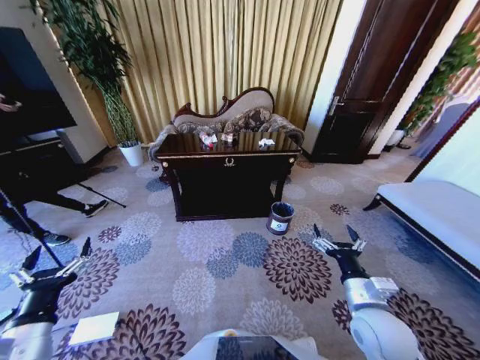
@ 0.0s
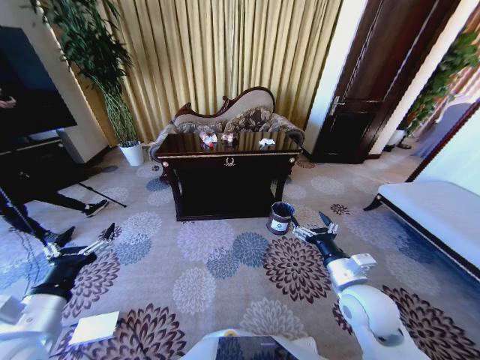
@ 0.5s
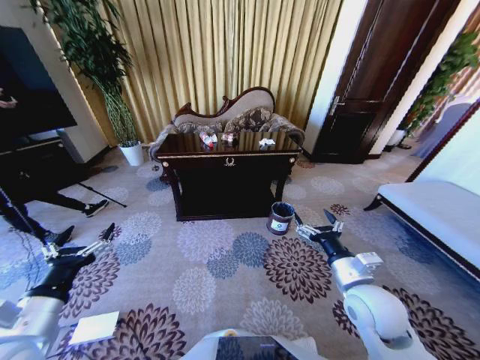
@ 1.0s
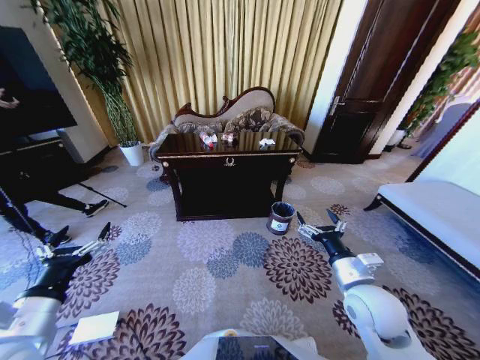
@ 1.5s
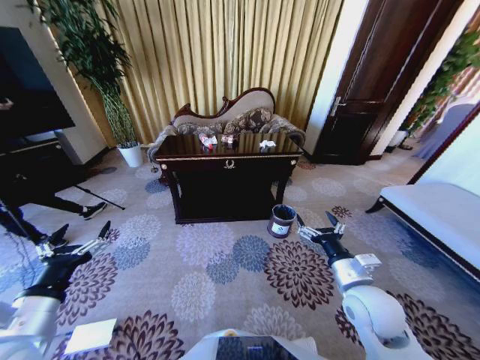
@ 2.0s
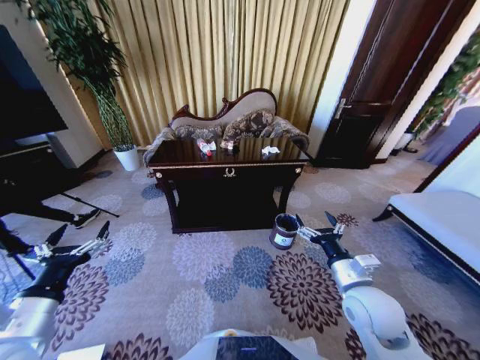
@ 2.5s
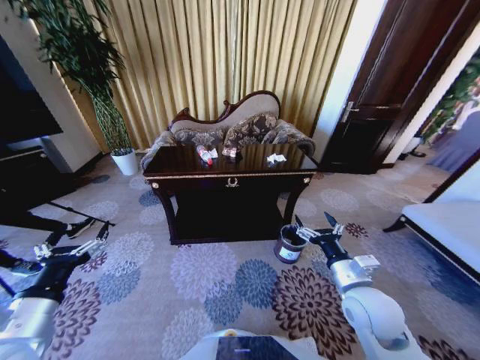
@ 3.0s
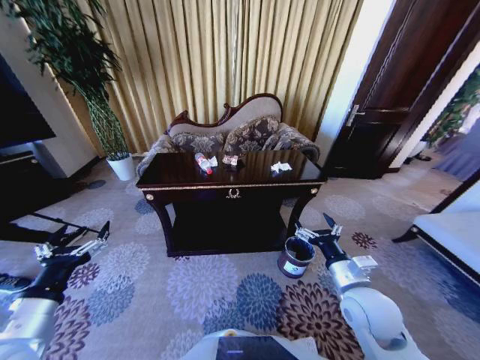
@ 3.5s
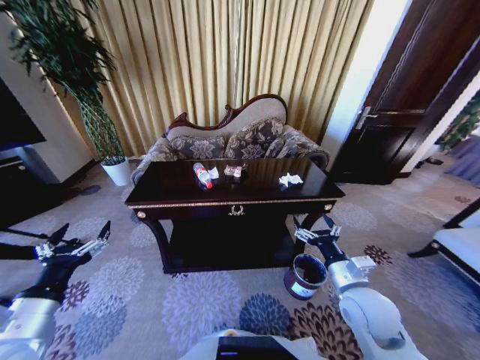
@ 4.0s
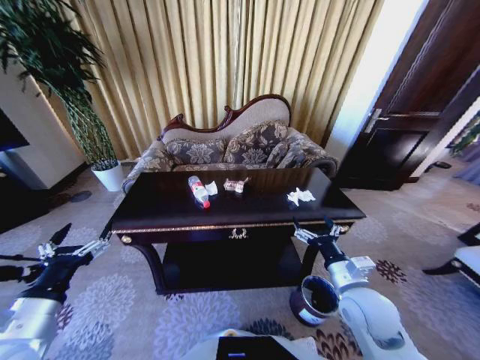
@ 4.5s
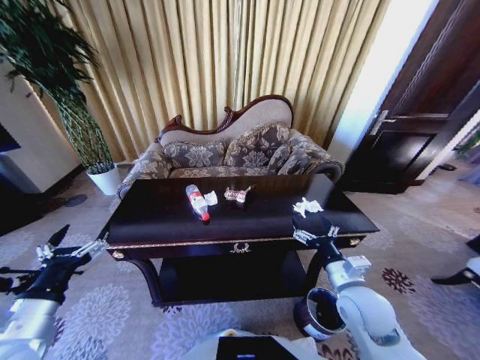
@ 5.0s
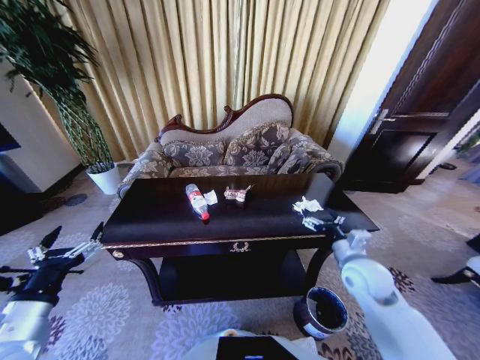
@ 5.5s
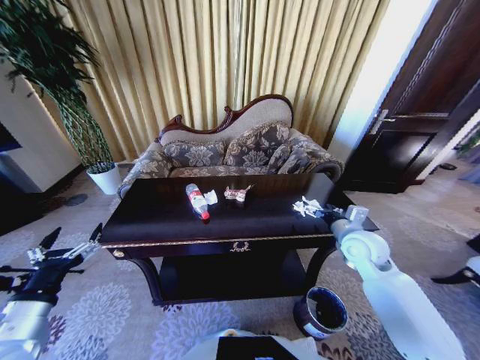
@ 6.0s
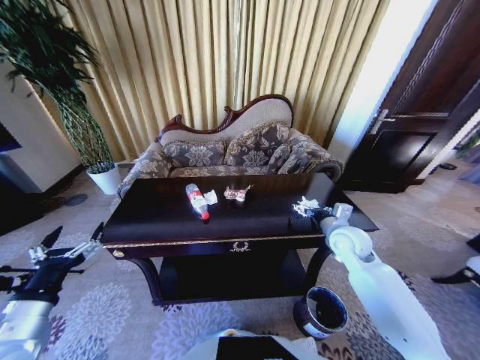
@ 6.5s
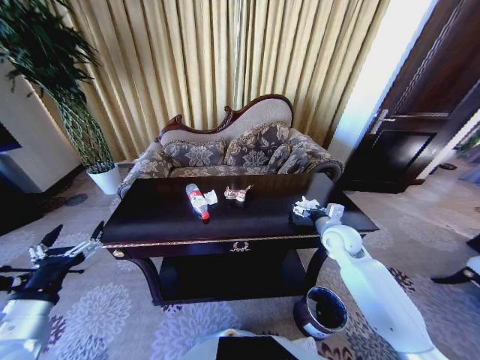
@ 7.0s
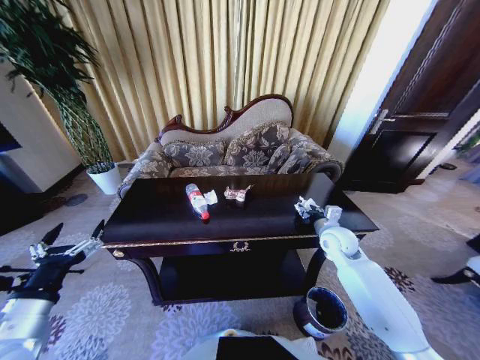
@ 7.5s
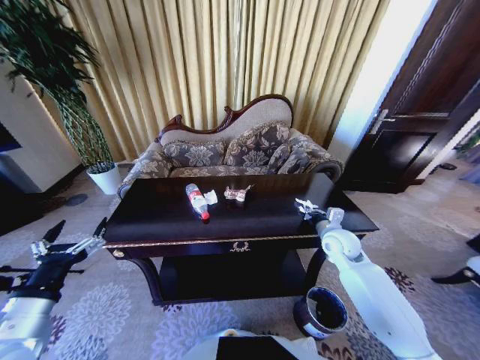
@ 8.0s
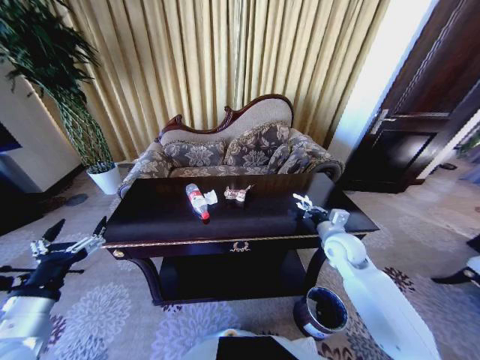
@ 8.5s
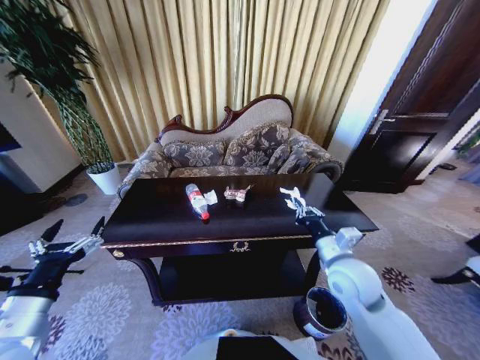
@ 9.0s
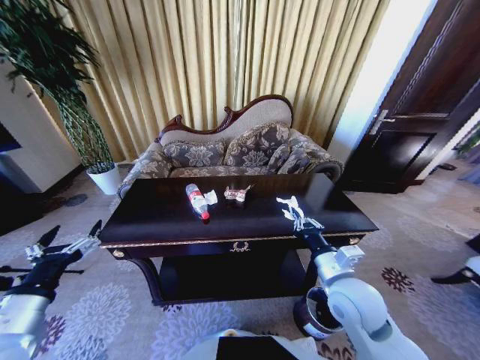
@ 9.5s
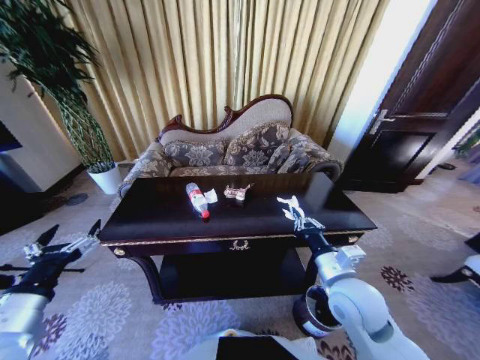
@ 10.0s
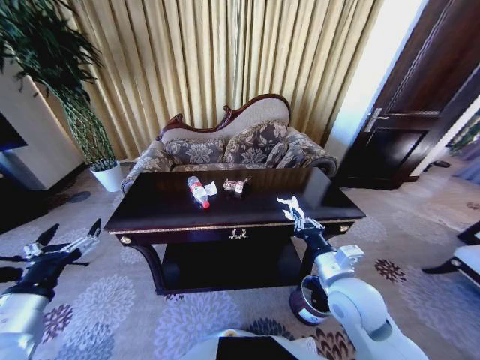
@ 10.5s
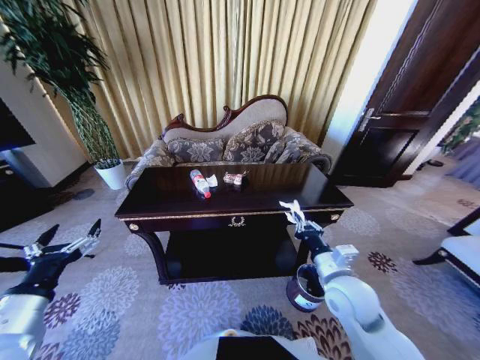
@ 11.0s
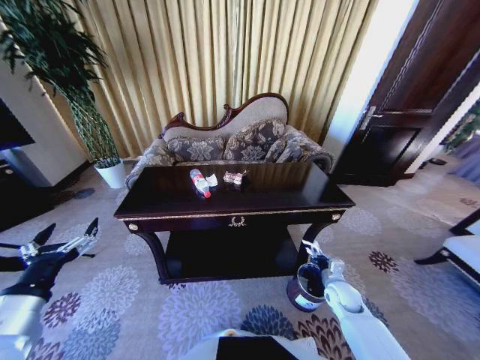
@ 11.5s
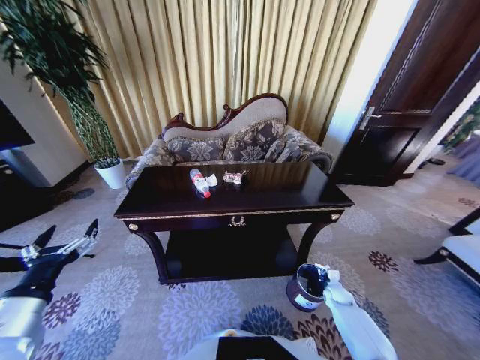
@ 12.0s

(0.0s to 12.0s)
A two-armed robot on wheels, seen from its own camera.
Task of the whole recording: Move to the front of the table and place the trash on the table into the trash bin.
4.0s - 6.0s: The right gripper goes some 15 cm forward and to the right.
6.0s - 8.0s: The right gripper moves downward, approximately 5 cm, and closes up.
8.0s - 10.0s: The right gripper moves backward and to the left, about 20 cm.
10.0s - 12.0s: The right gripper is displaced downward and to the right by about 40 cm.

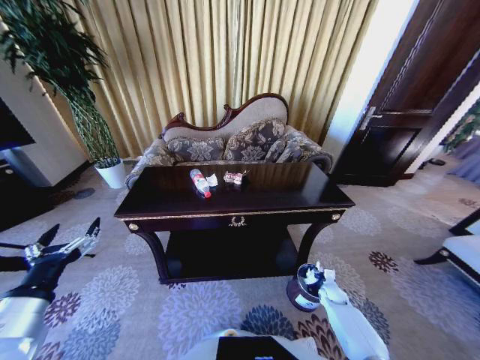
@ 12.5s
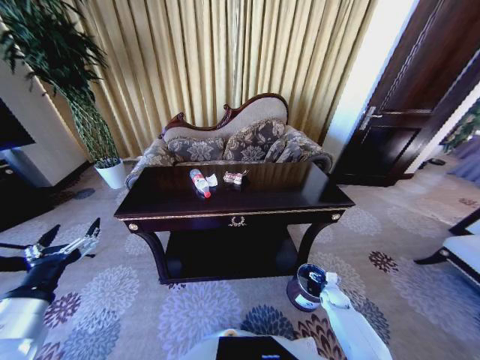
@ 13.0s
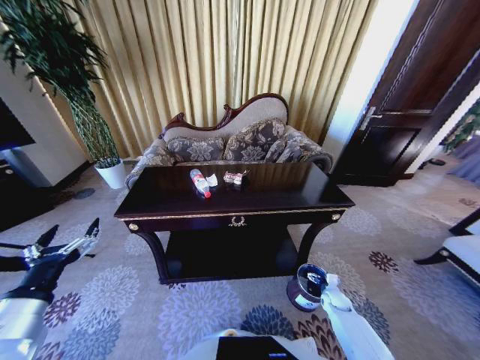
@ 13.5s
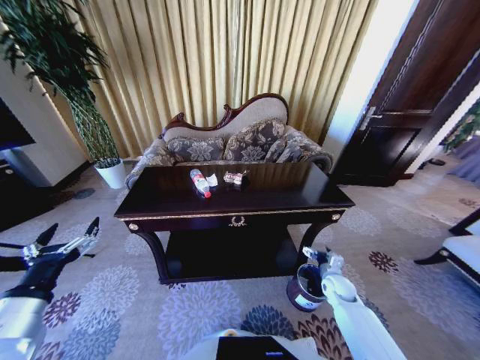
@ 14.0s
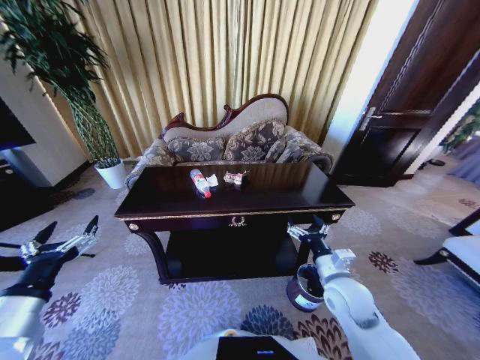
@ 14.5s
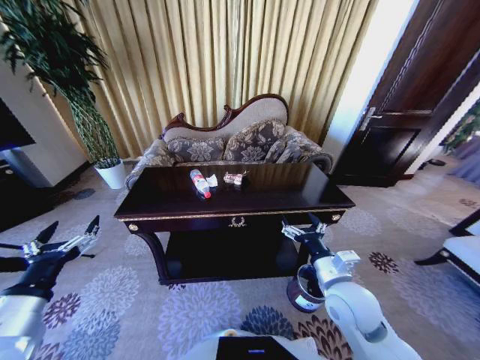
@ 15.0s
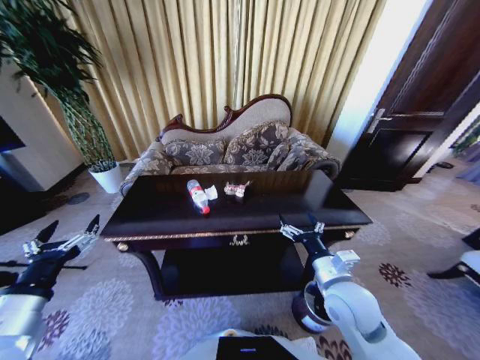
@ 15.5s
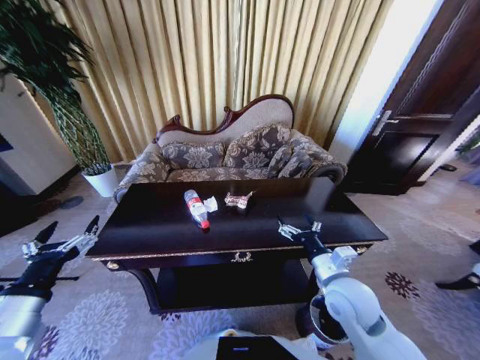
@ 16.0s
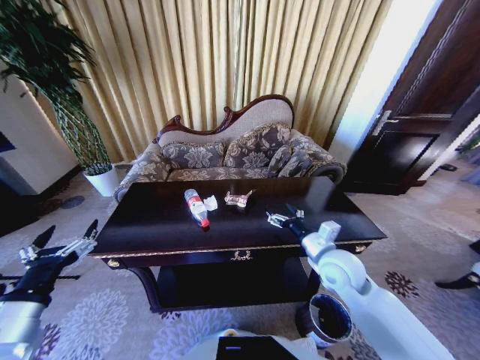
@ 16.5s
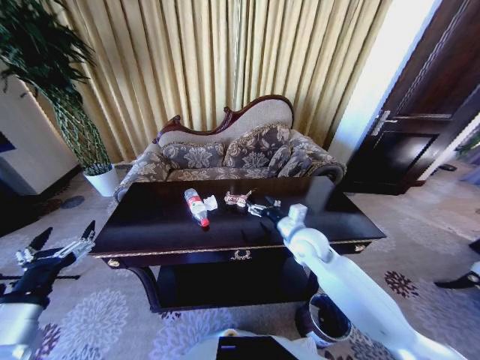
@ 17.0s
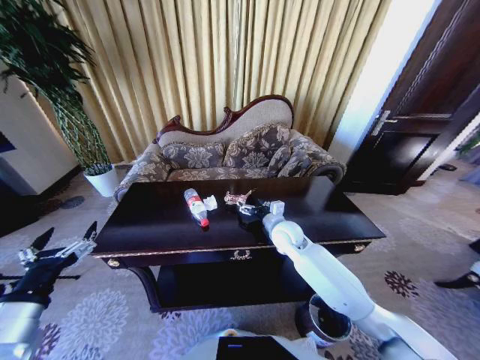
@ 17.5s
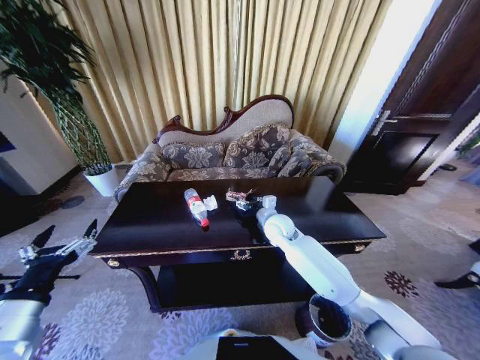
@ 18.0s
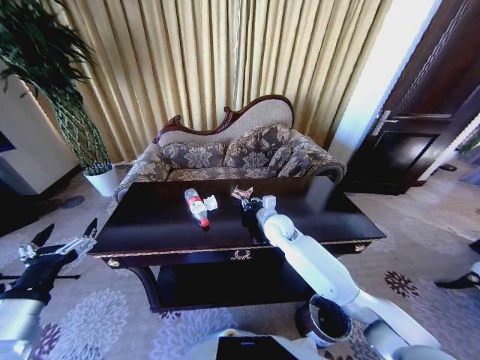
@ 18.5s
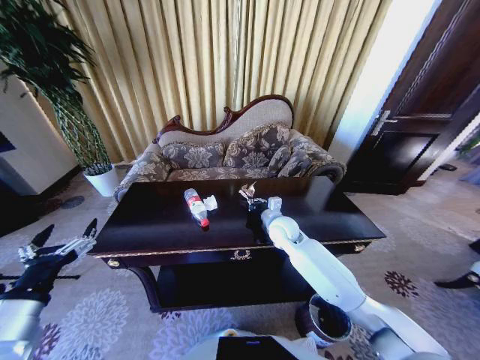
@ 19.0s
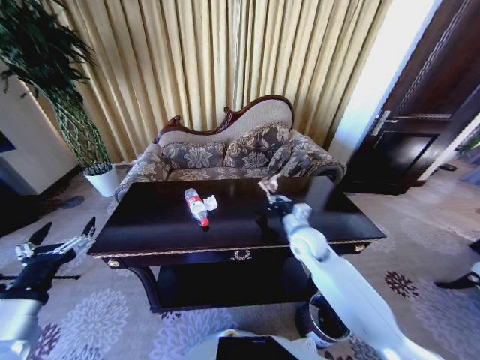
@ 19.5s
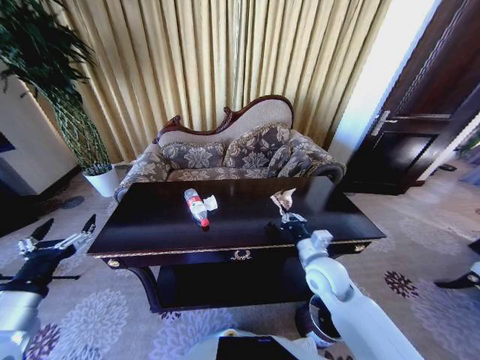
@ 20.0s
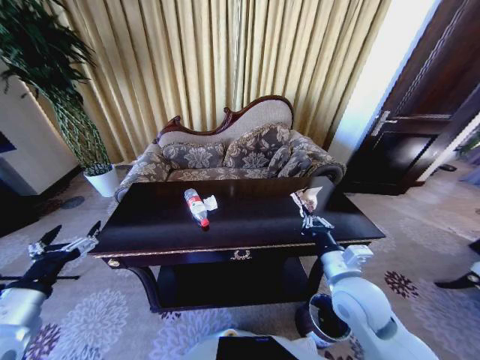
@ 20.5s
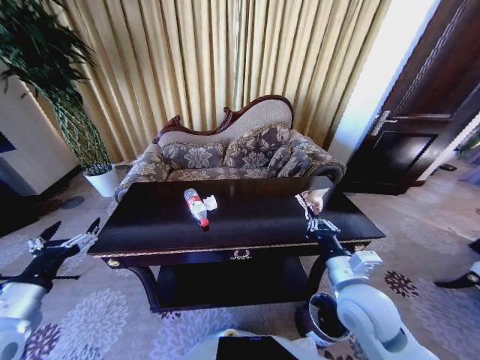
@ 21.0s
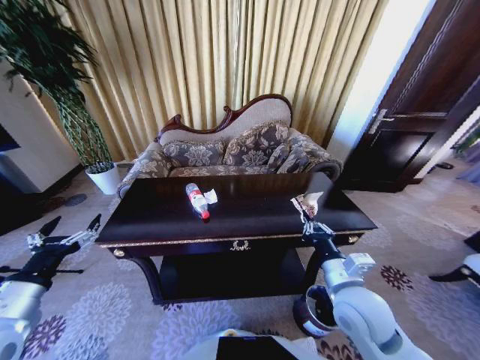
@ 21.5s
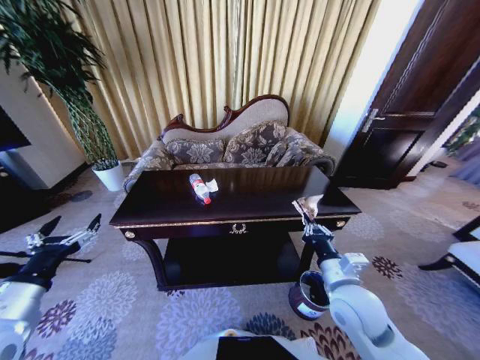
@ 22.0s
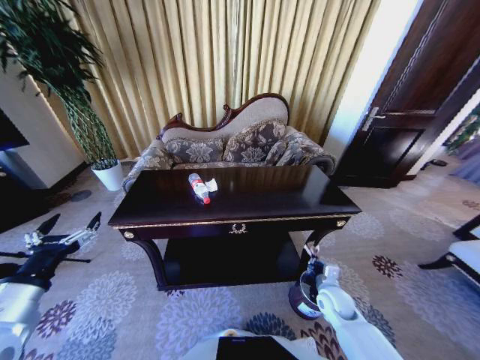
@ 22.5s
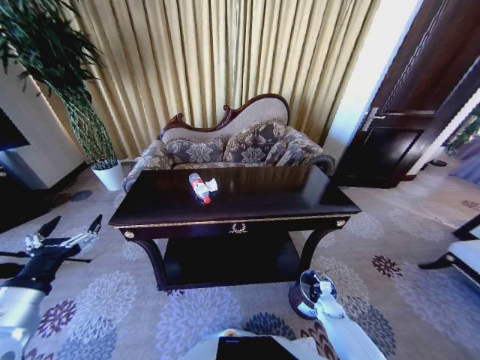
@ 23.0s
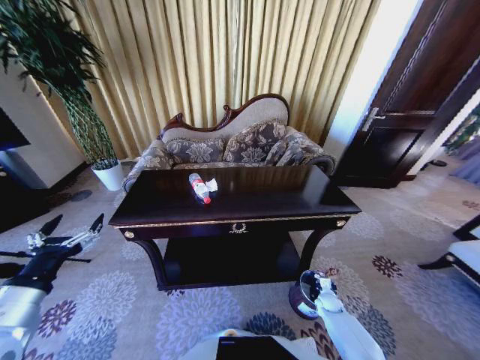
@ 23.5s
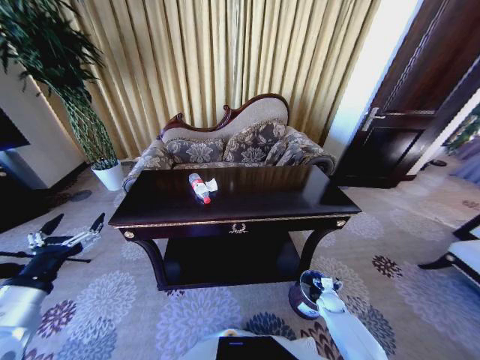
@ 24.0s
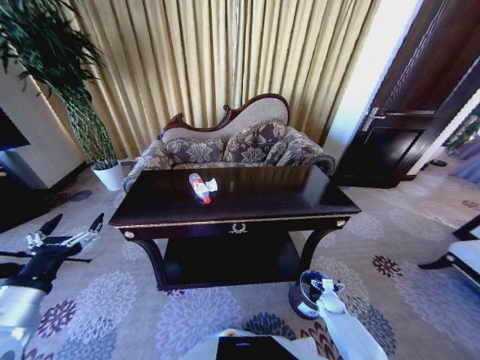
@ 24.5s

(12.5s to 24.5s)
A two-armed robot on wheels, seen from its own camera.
Task of the whole recording: Move to the front of the table and place the trash on the table into the trash bin.
12.5s - 14.5s: The right gripper goes roughly 30 cm upward and to the left, and opens up.
14.5s - 16.5s: The right gripper travels upward by roughly 5 cm.
16.5s - 18.5s: The right gripper moves forward and to the left, roughly 20 cm, and closes.
18.5s - 20.5s: The right gripper moves backward and to the right, roughly 25 cm.
20.5s - 22.5s: The right gripper goes about 20 cm downward.
22.5s - 24.5s: The right gripper goes about 20 cm downward and to the right, and opens.

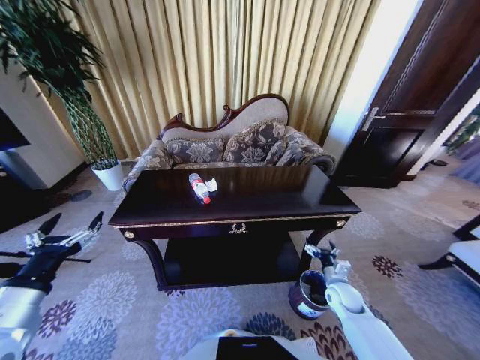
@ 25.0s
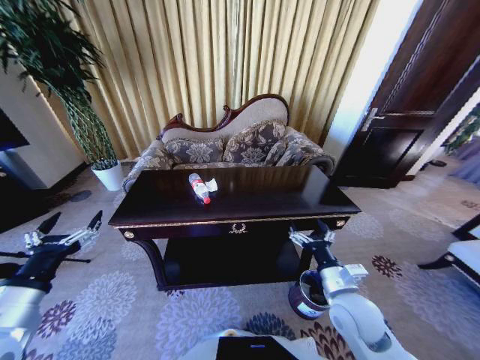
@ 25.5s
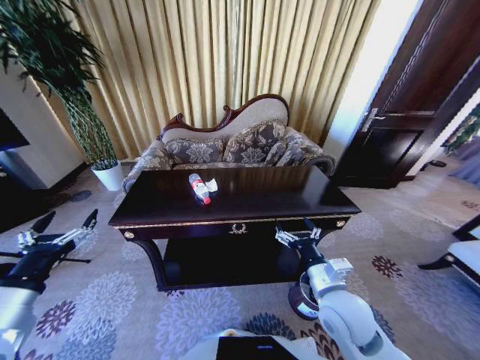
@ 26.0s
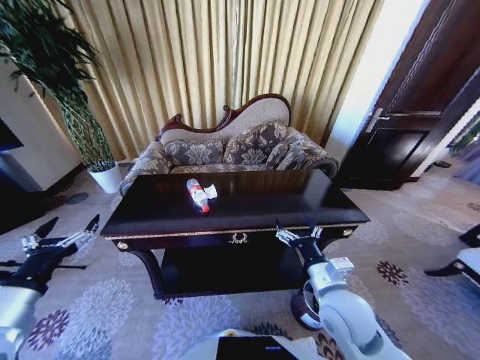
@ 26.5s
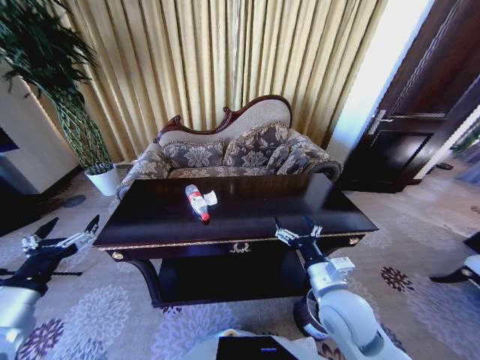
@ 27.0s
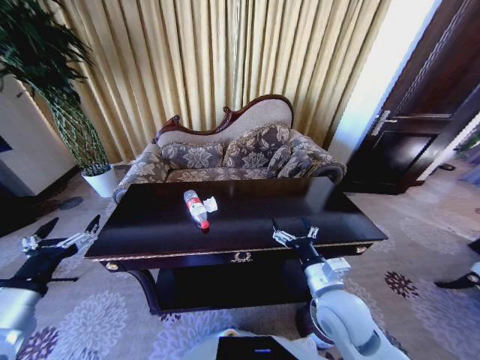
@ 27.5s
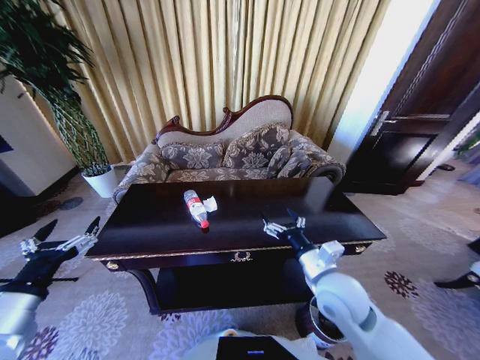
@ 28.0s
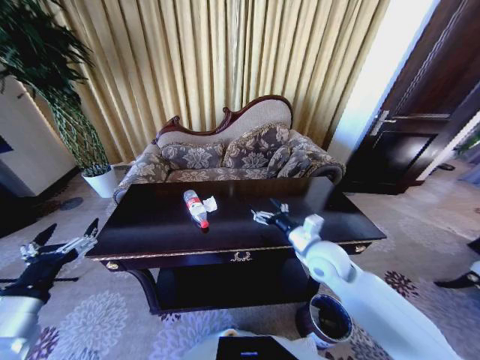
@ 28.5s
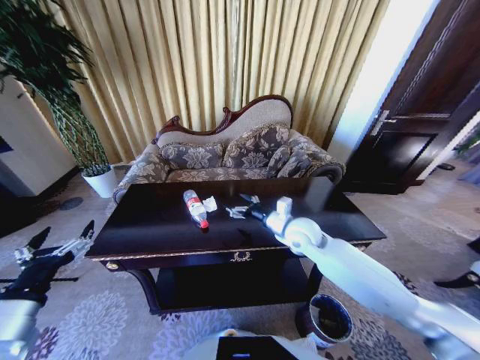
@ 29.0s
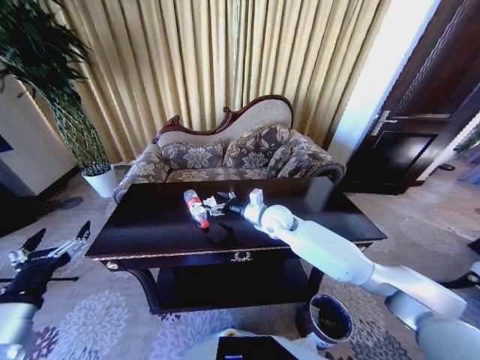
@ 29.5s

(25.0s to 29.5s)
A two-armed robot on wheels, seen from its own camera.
Task of the whole recording: Move to the front of the table and place the trash on the table into the trash bin.
25.0s - 27.0s: The right gripper is displaced upward and to the left by some 25 cm.
27.0s - 29.5s: The right gripper shifts some 25 cm forward.
